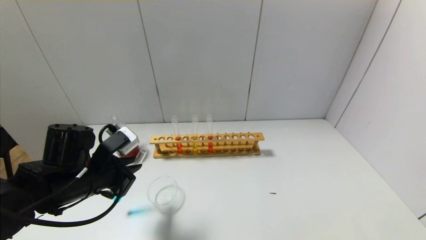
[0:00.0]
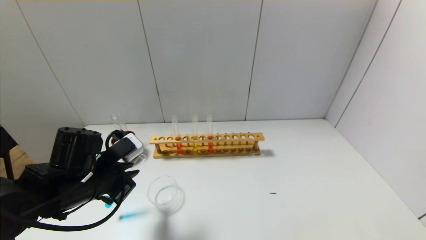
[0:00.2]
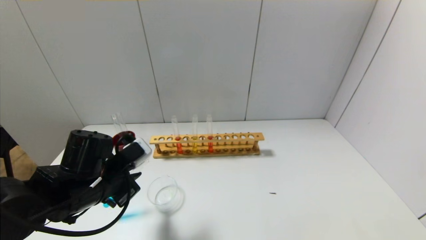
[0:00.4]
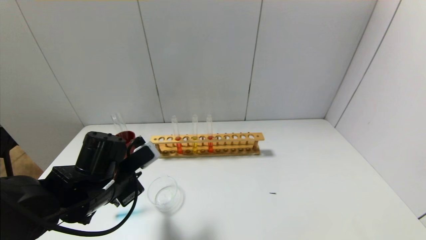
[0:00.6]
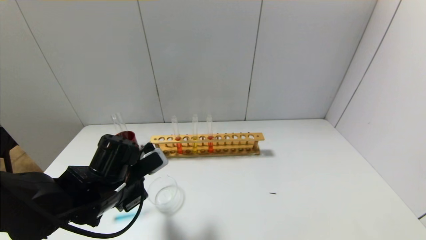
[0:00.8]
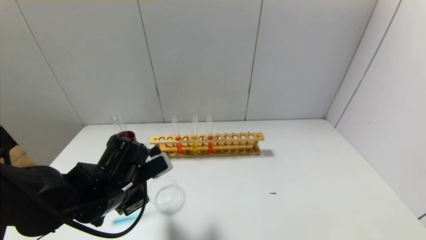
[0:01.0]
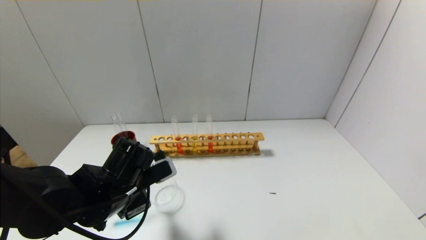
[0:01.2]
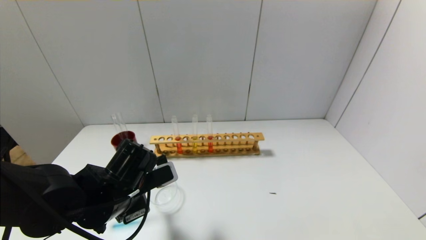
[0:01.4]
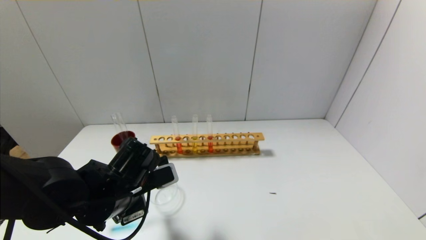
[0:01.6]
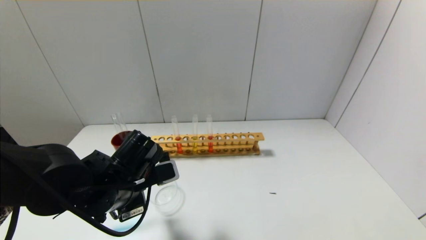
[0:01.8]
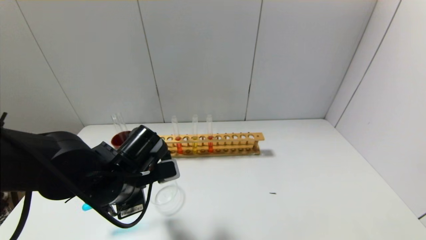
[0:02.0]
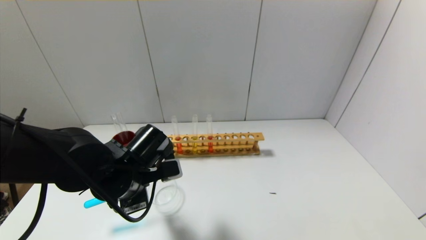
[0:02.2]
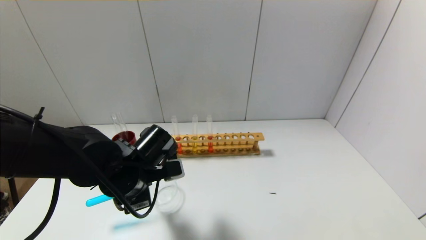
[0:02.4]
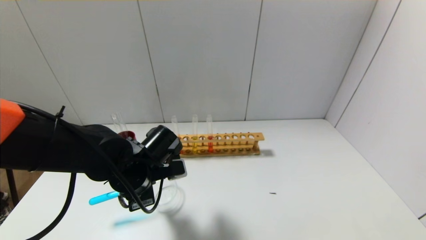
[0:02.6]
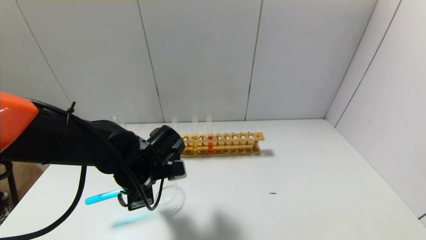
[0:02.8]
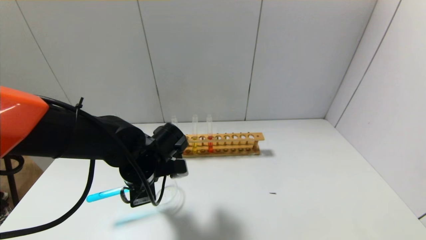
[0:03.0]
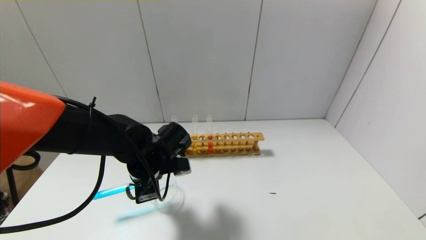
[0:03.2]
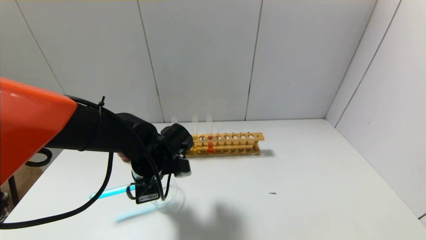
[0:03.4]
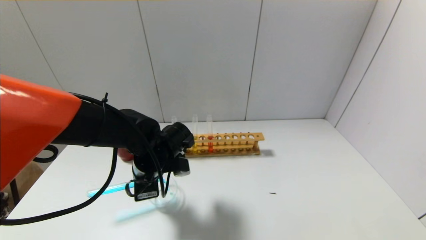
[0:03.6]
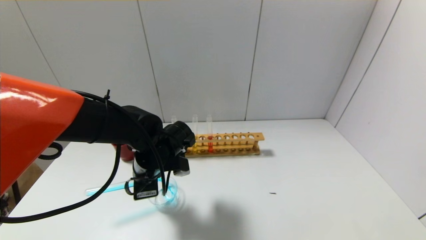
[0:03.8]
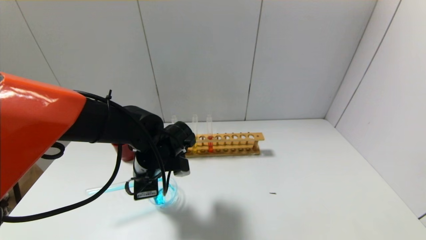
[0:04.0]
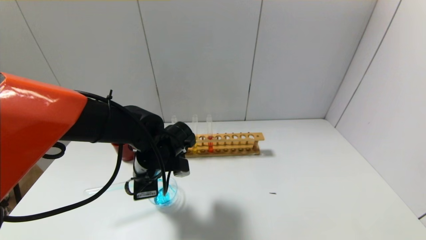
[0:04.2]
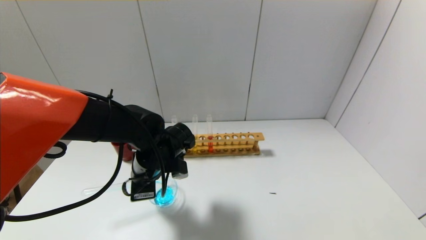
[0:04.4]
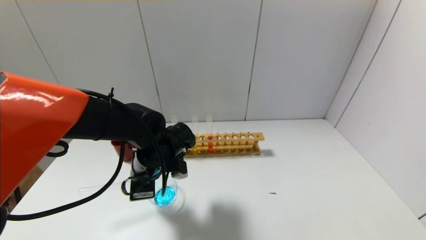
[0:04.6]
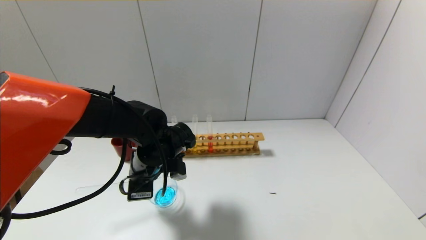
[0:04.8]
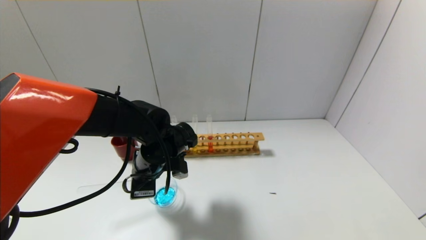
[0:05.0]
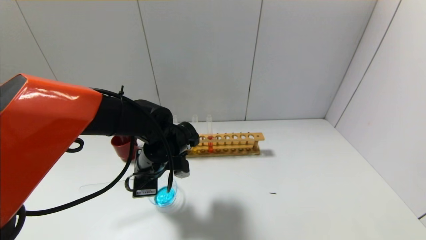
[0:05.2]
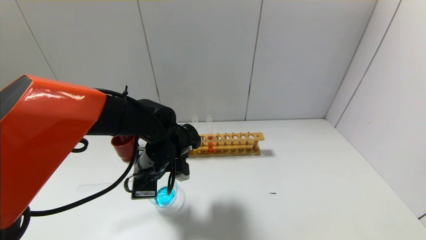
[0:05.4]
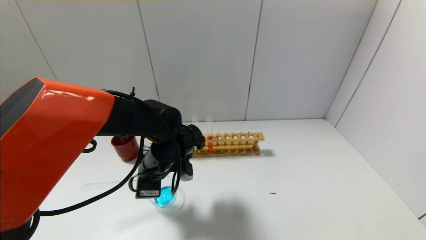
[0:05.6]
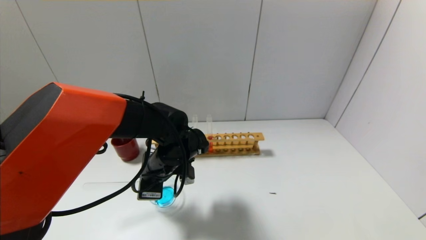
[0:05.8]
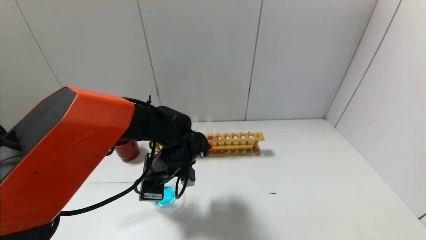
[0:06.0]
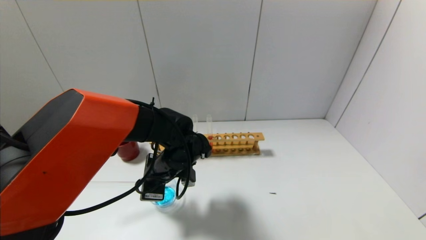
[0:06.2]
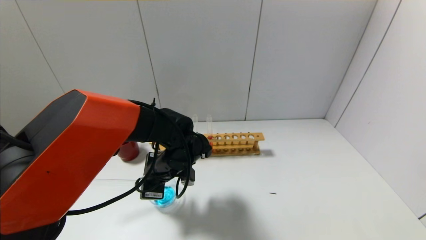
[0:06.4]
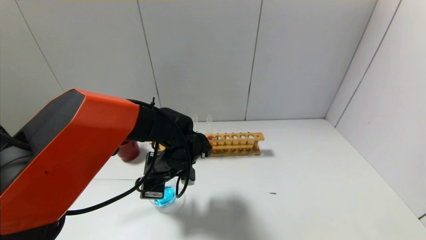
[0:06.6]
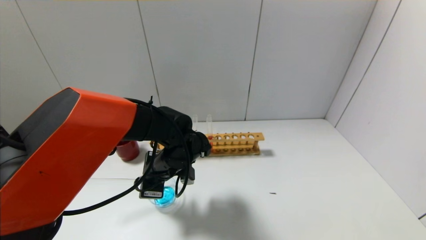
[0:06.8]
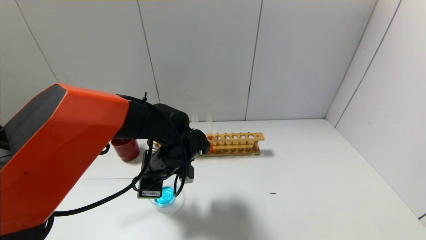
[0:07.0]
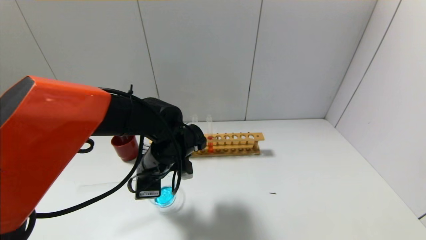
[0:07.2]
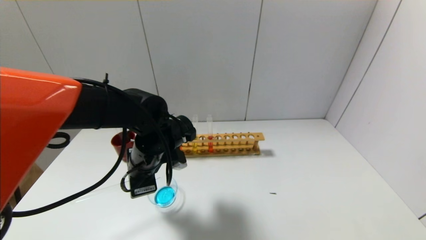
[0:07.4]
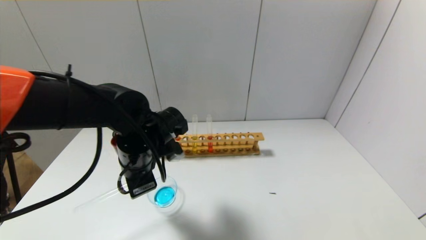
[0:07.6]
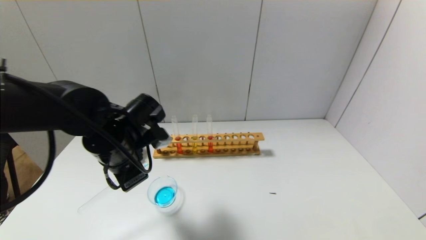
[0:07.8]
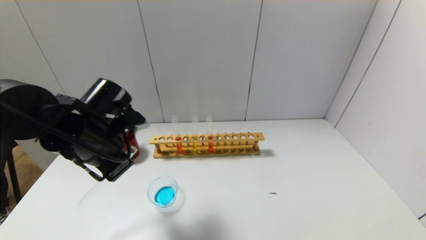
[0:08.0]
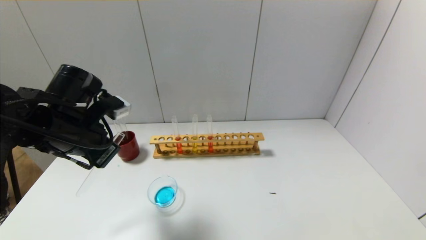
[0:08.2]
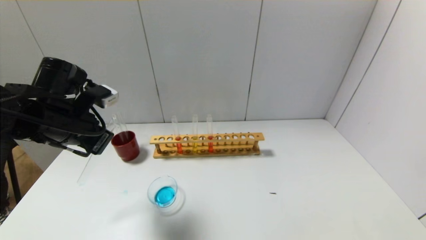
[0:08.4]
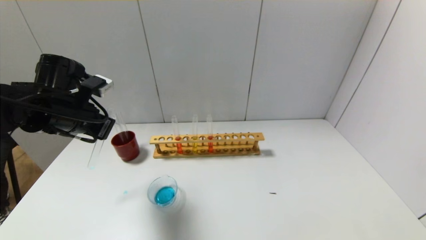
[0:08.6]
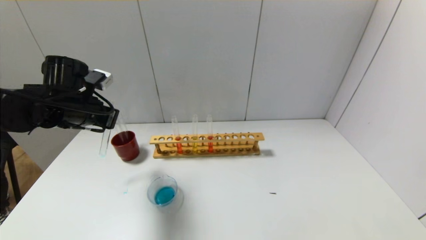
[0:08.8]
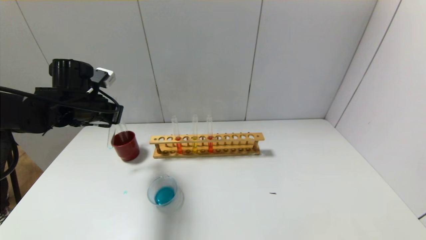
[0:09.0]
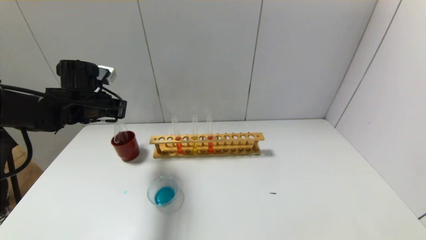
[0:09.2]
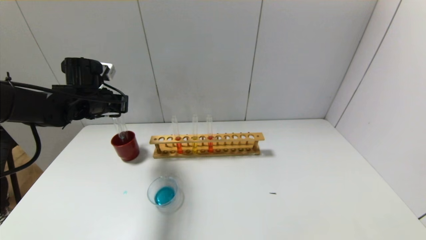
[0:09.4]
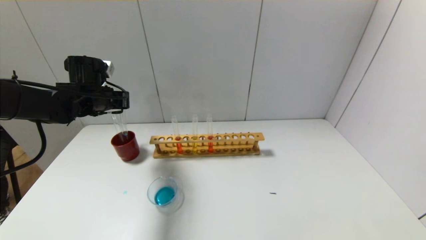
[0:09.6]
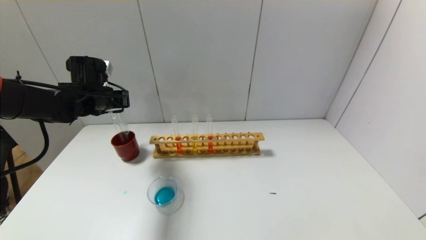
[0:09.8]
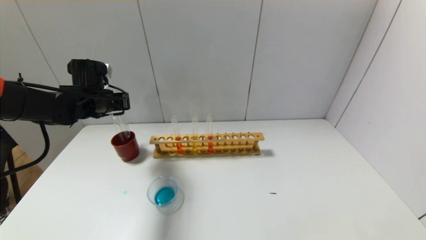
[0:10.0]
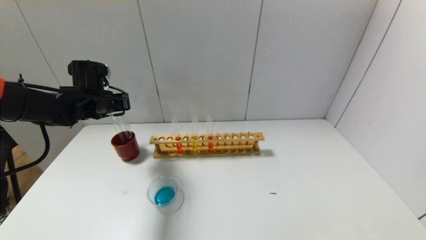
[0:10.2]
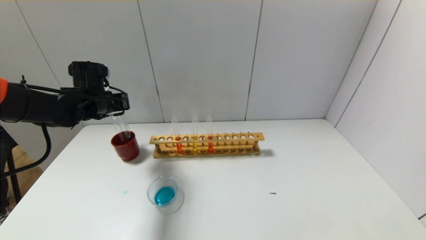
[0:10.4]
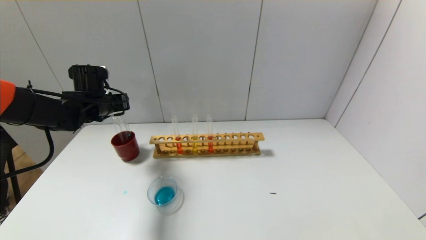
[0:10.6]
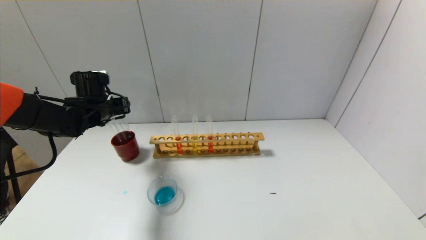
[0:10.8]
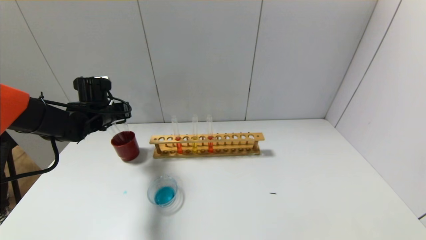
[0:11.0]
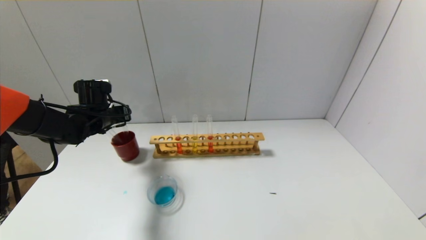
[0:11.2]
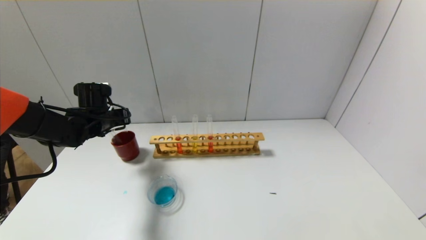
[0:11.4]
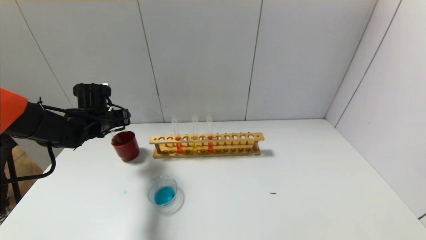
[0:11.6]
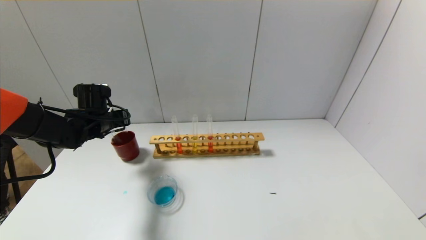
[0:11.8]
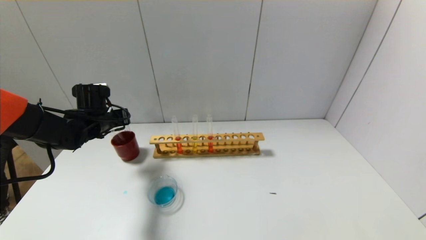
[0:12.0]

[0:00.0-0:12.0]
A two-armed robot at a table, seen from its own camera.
Step, 0:00.0 to 0:07.8: Pour the blue reagent into the graduated cylinder with the left gripper.
Step, 0:08.0 to 0:12.0: Place the test tube into the brown cup with the left gripper.
0:00.0 to 0:01.6: The left gripper moves to the right, approximately 5 cm.
0:01.6 to 0:03.0: The left gripper shifts by approximately 5 cm.
0:03.0 to 0:04.4: The grippers stay close to where they were, moving slightly.
0:04.4 to 0:06.0: The grippers stay close to where they were, moving slightly.
0:06.0 to 0:07.6: The left gripper moves upward, roughly 5 cm.
0:07.6 to 0:09.0: The left gripper moves to the left and forward, approximately 15 cm.
0:09.0 to 0:10.4: The left gripper goes some 5 cm forward.
0:10.4 to 0:12.0: The grippers make only small movements.

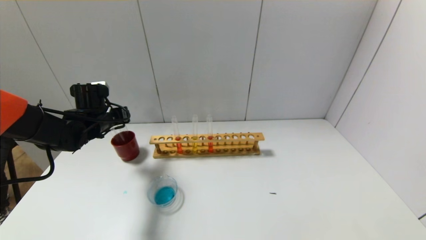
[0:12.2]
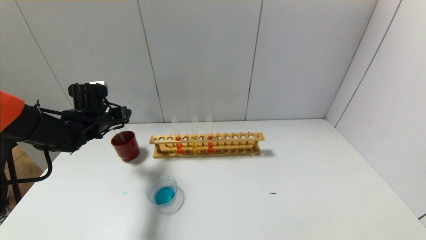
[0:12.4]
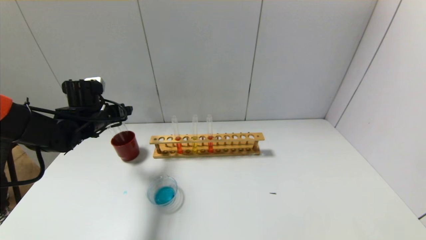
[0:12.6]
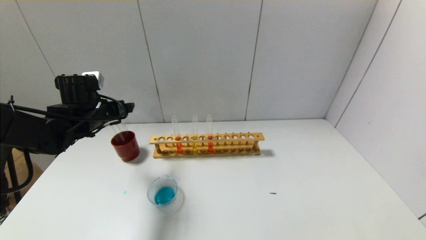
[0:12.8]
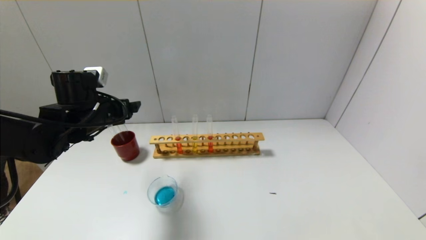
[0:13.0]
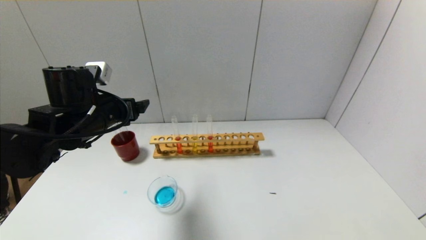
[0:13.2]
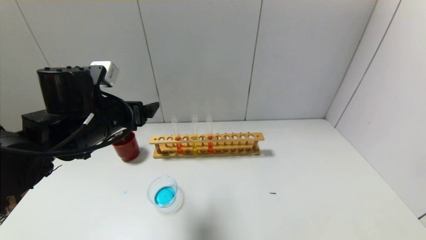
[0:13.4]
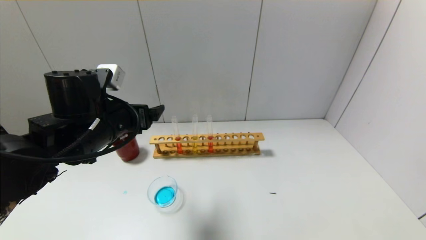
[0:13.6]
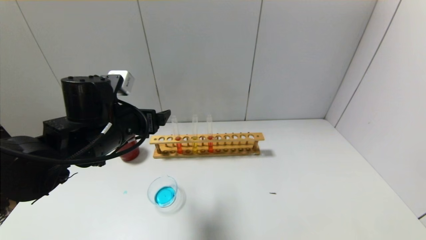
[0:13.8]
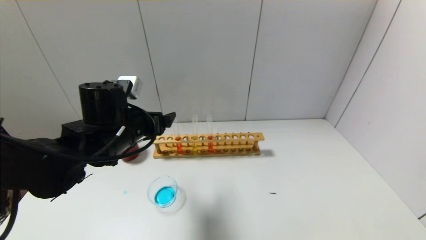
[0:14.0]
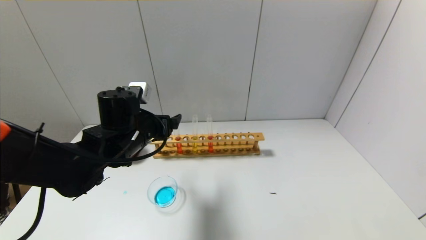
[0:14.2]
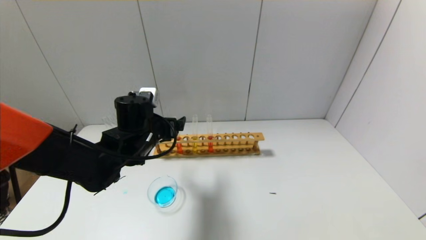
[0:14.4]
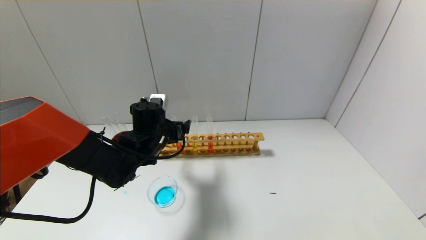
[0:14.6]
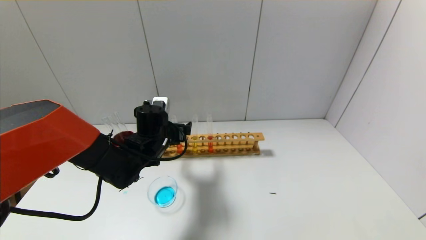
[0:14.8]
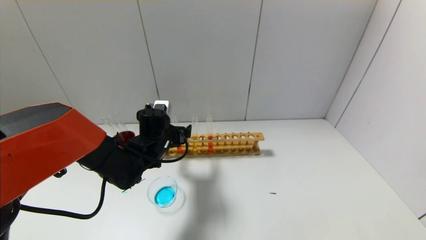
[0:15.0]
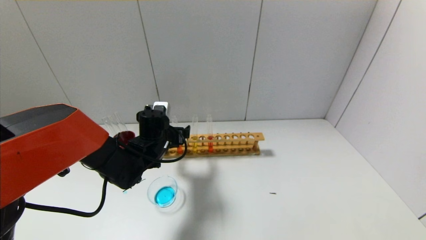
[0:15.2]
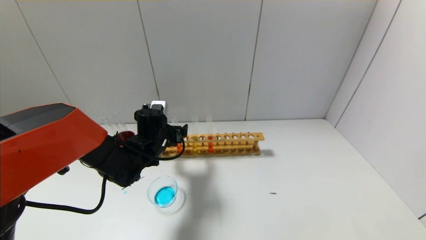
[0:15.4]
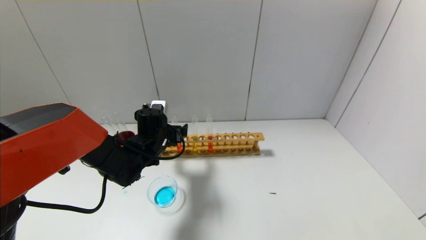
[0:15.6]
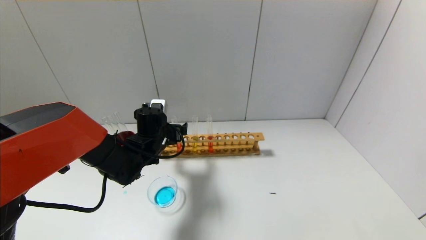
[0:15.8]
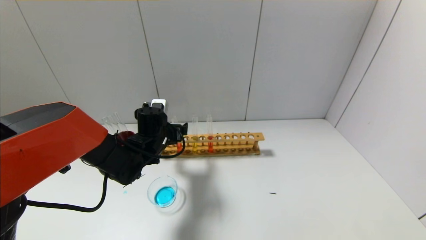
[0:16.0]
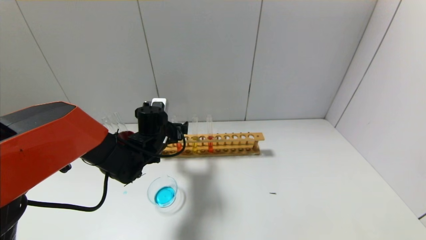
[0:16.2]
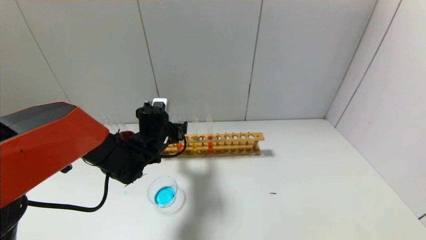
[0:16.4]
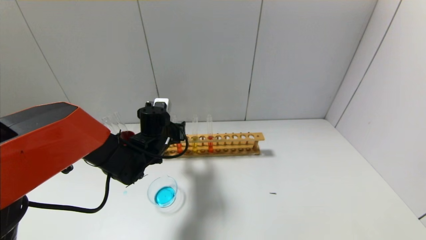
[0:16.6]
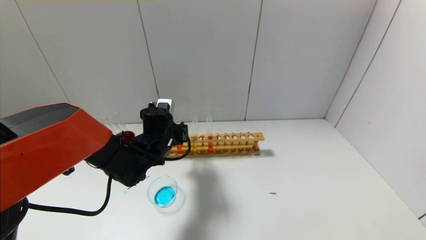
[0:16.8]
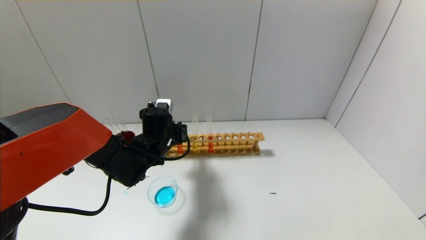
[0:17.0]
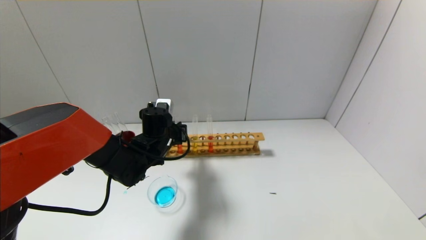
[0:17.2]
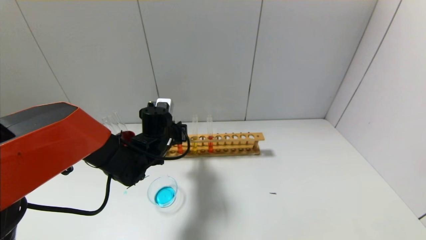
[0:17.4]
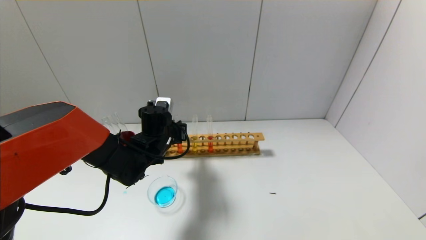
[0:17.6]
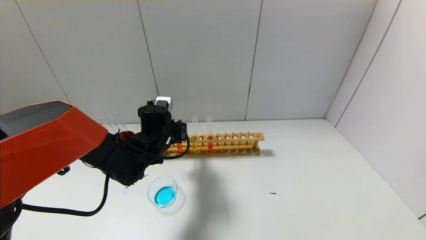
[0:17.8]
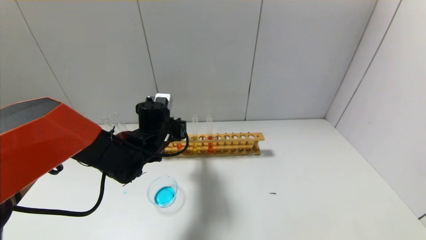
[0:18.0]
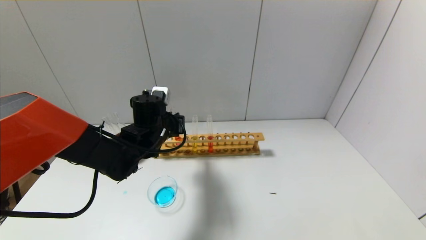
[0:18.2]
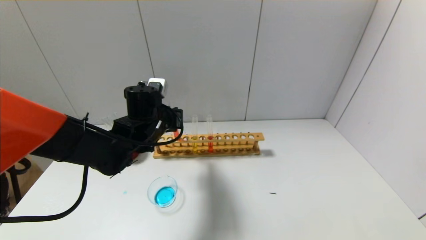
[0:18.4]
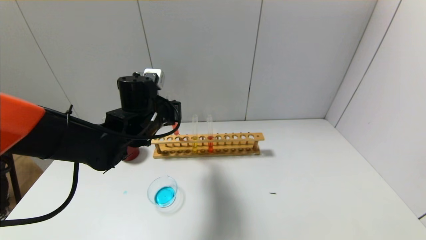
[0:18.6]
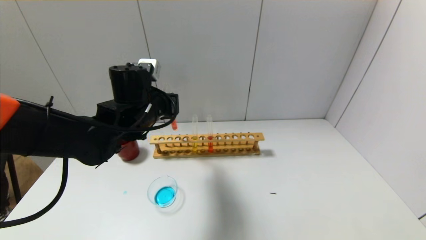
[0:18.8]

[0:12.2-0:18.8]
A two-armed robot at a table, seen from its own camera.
Step, 0:12.2 to 0:16.8: Grasp the red reagent with the left gripper.
0:12.2 to 0:13.8: The left gripper shifts roughly 15 cm backward, to the right and upward, and opens up.
0:13.8 to 0:15.4: The left gripper is displaced downward and forward by about 15 cm.
0:15.4 to 0:17.2: The left gripper closes its fingers.
0:17.2 to 0:18.8: The left gripper travels upward by roughly 10 cm.
